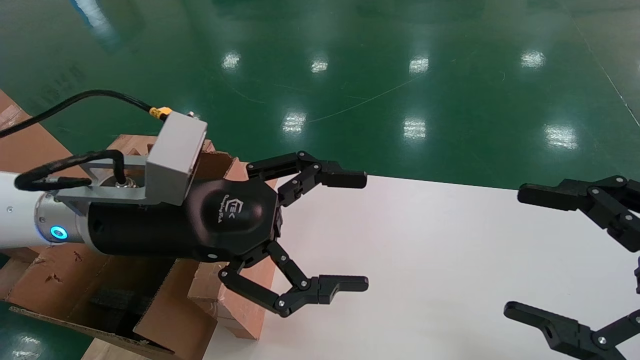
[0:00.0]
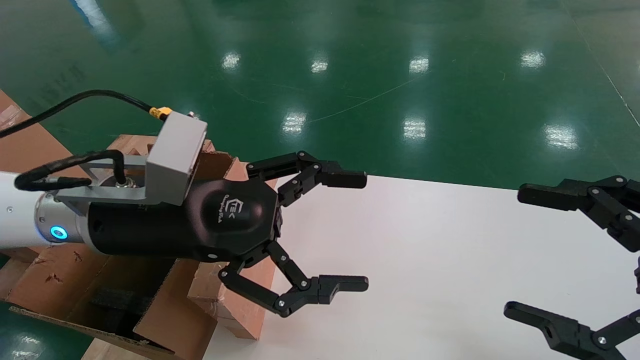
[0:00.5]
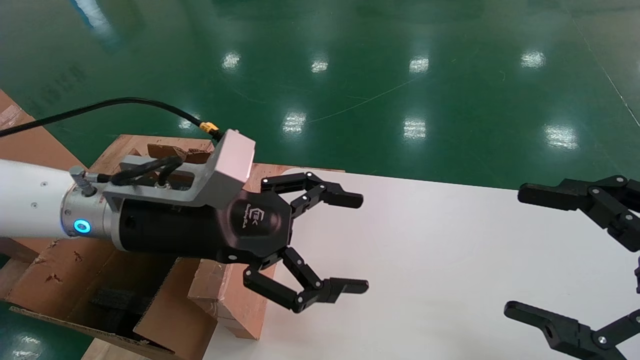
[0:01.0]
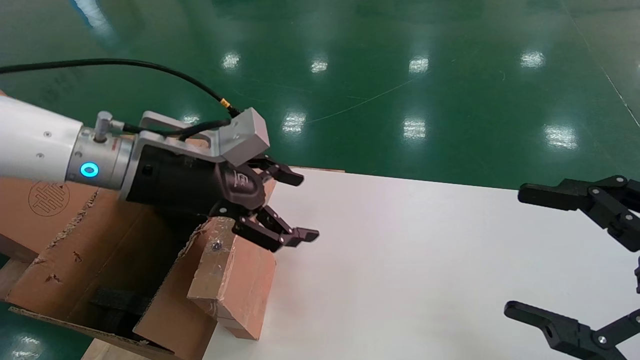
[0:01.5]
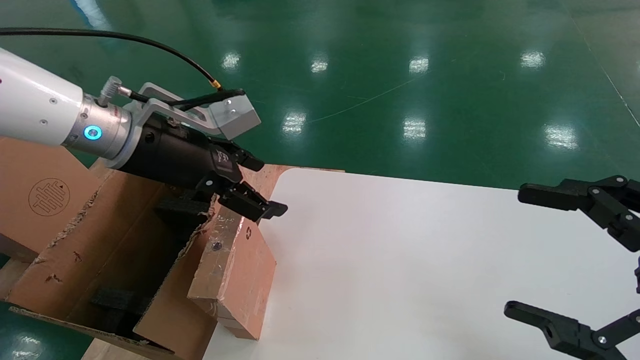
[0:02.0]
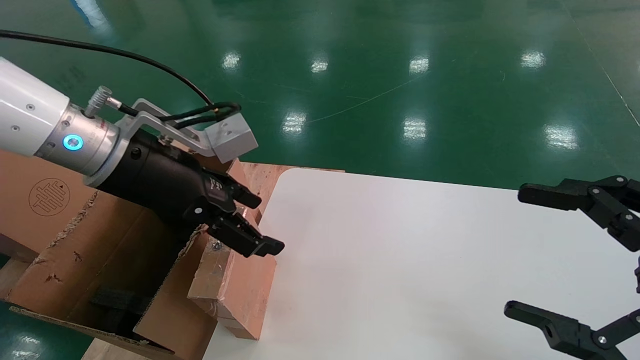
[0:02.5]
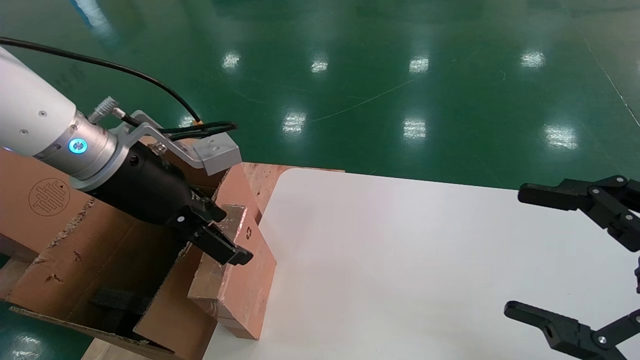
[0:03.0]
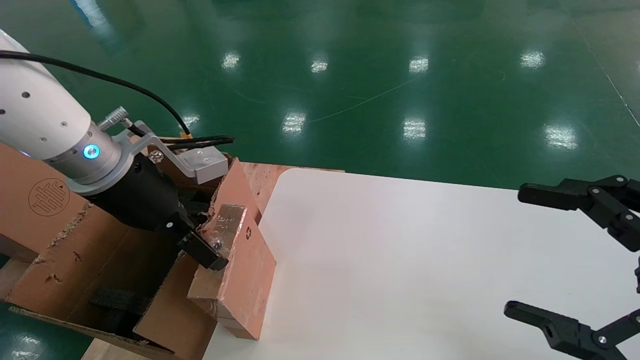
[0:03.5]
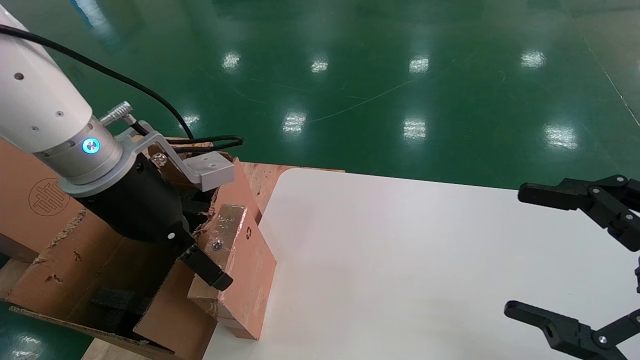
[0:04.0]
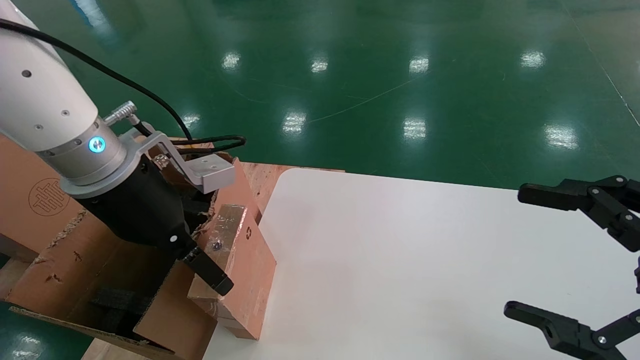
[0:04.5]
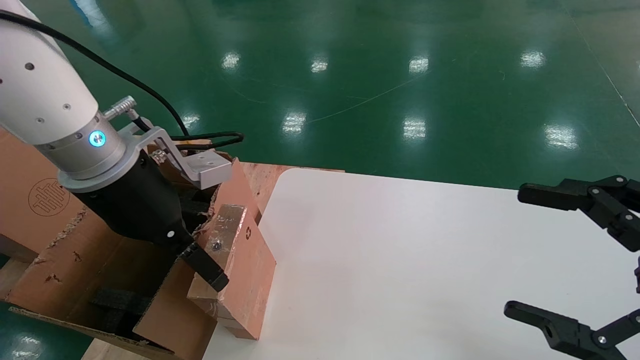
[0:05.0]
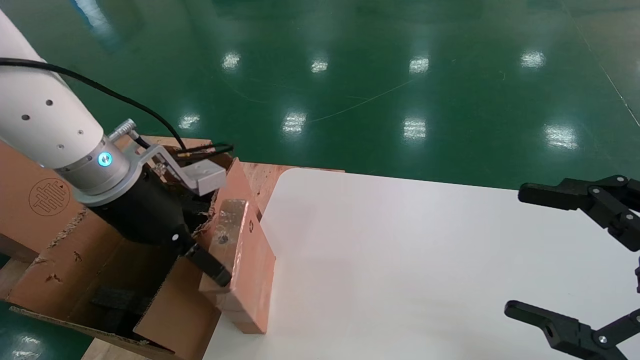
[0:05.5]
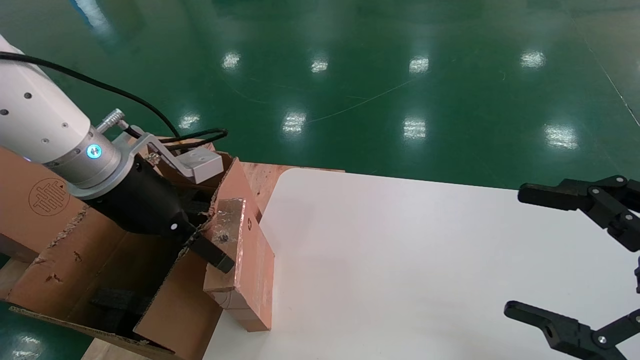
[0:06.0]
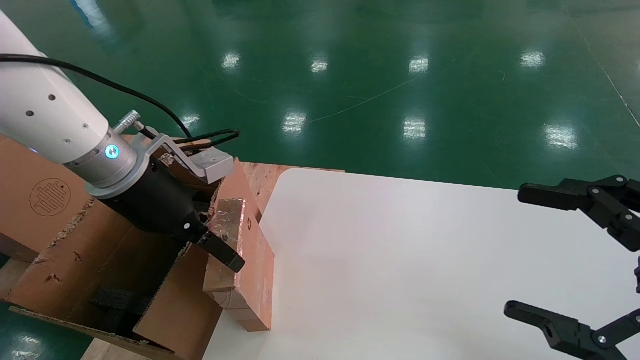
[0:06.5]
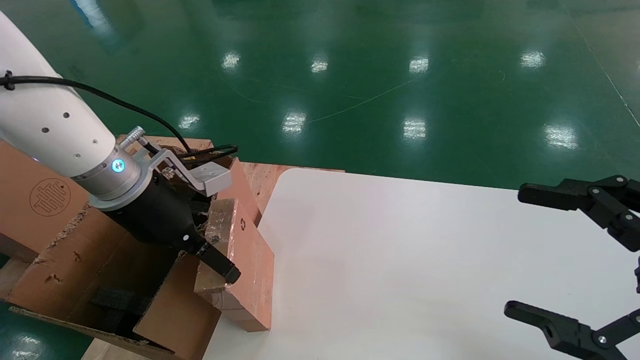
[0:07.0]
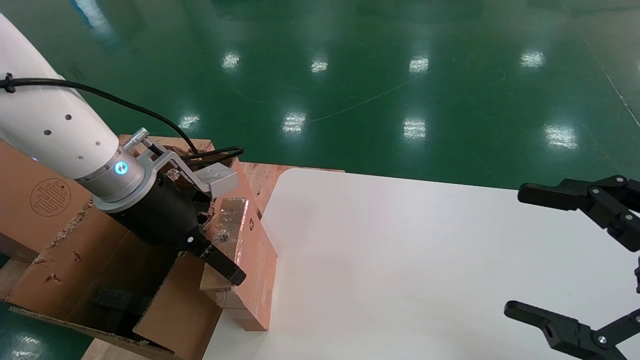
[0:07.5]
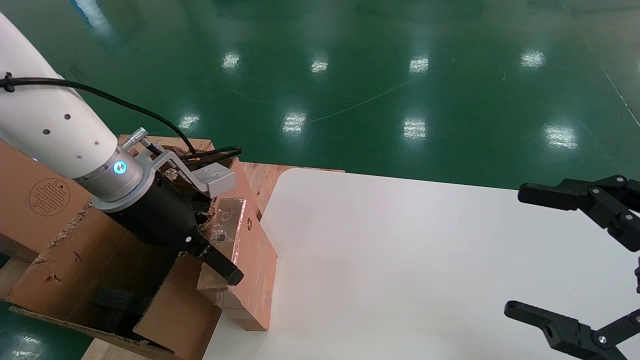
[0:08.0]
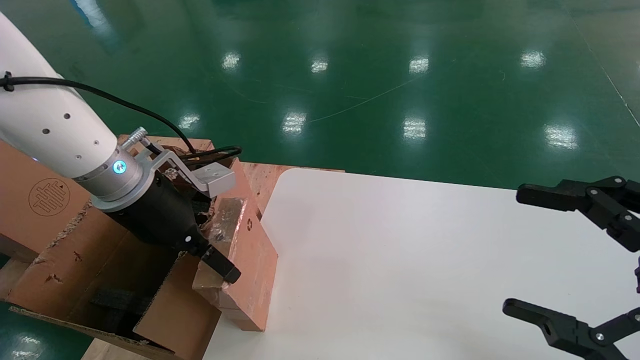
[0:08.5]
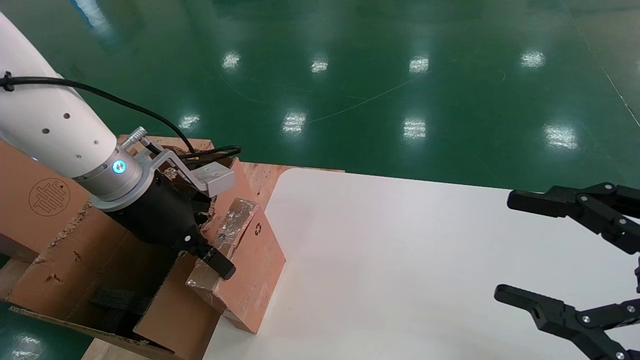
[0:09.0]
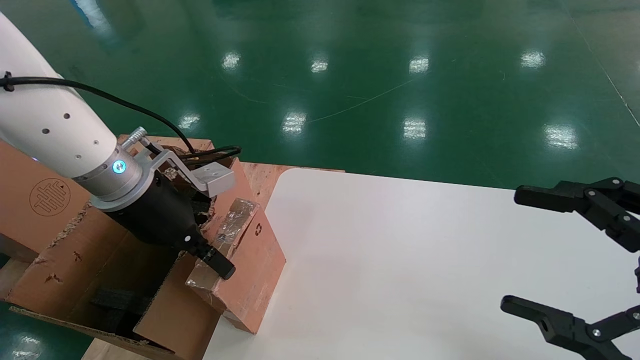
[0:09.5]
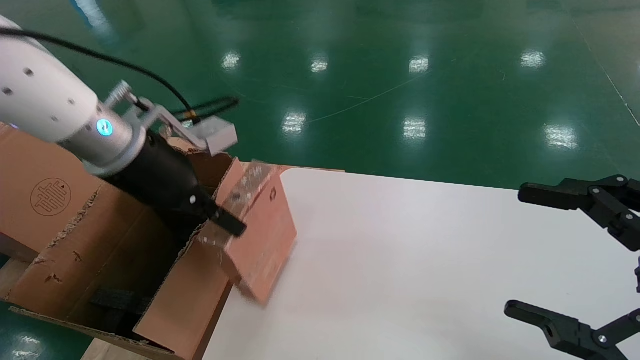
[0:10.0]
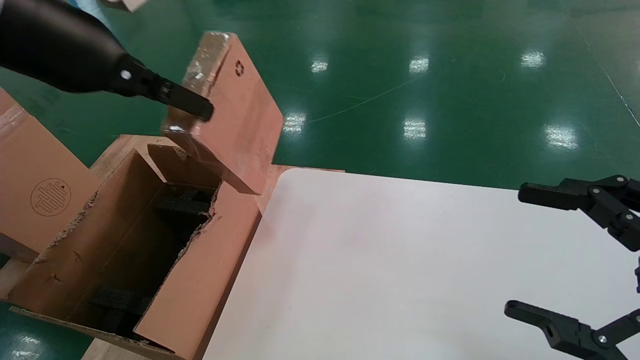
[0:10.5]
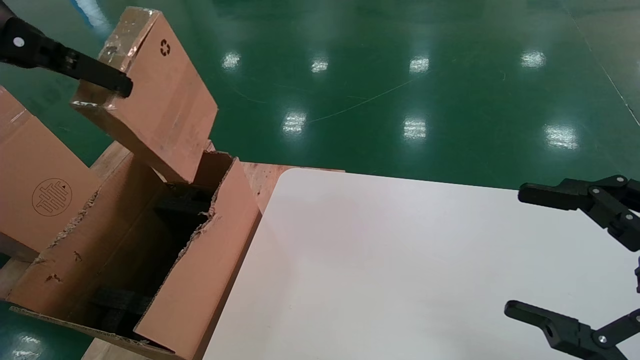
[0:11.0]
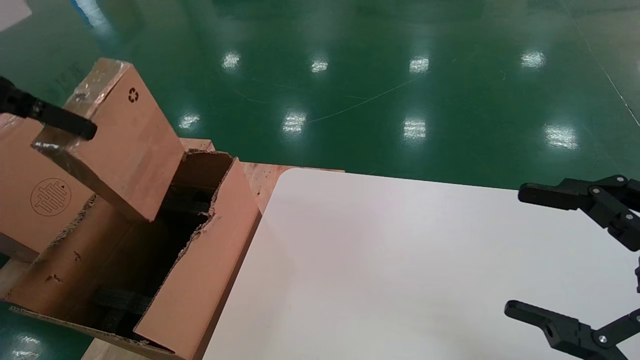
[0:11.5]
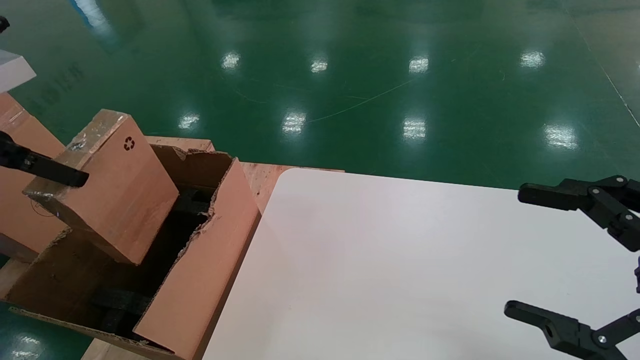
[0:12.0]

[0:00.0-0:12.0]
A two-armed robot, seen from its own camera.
Task of the whole recording: put the box on the table into the big box.
Step, 0:01.0 to 0:09.0: Pick up the mouse and power cord box.
0:00.0 to 0:02.0: The left gripper is displaced forward by about 5 cm.
0:04.0 to 0:08.0: There are only small adjustments of the grippers.
0:08.0 to 0:10.0: The left gripper heads upward, covering about 5 cm, and closes up. The right gripper closes, then reopens.
0:10.0 to 0:12.0: The left gripper is displaced to the left and backward by about 20 cm.

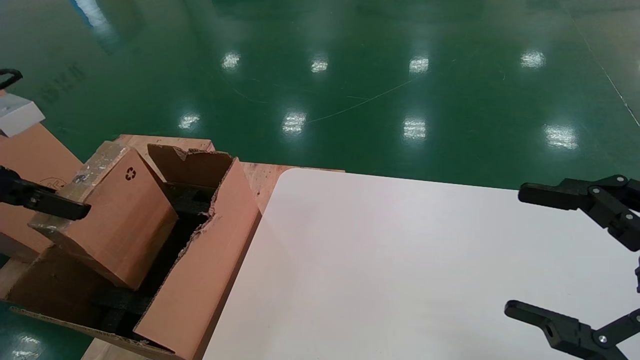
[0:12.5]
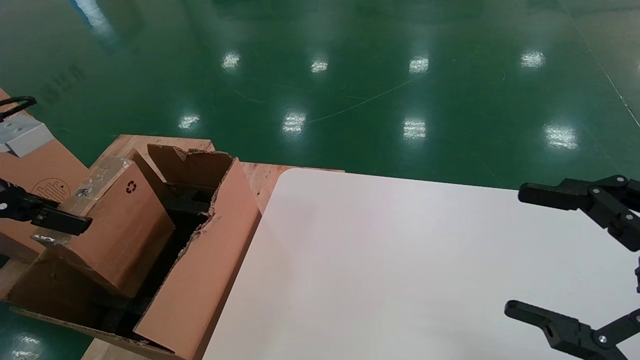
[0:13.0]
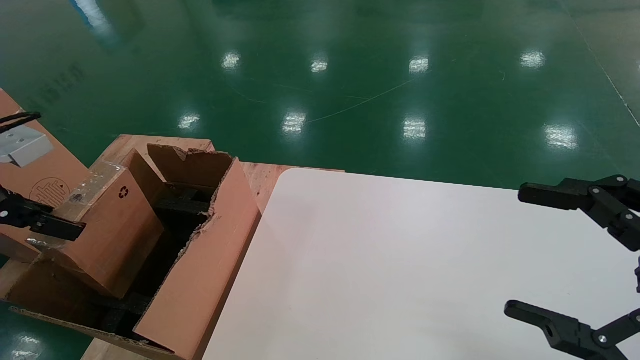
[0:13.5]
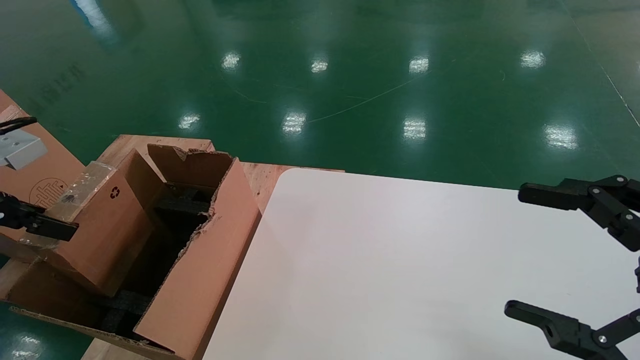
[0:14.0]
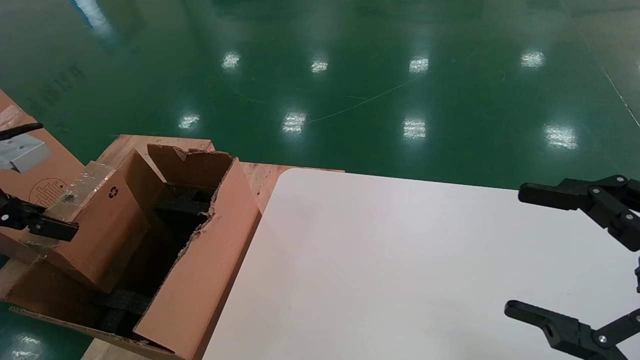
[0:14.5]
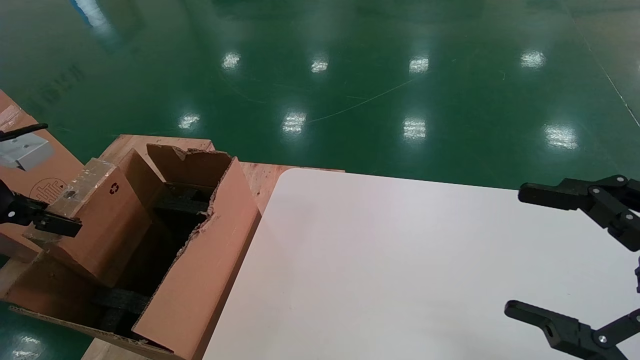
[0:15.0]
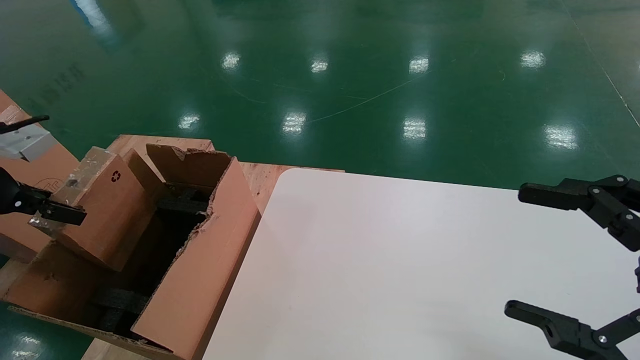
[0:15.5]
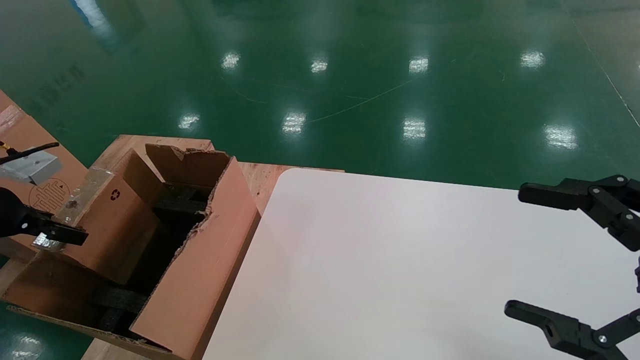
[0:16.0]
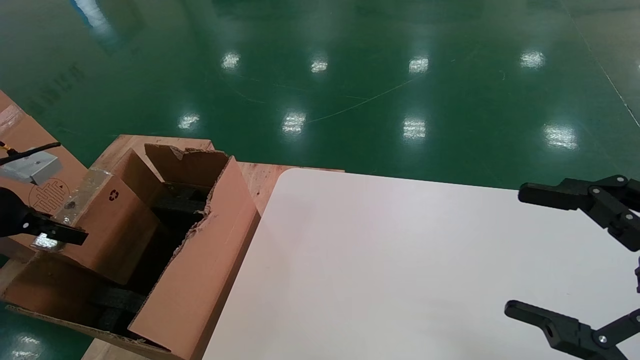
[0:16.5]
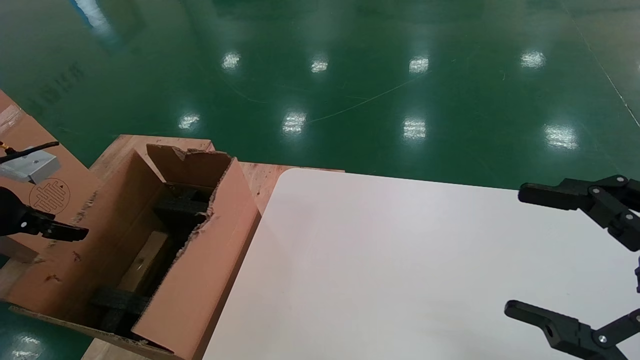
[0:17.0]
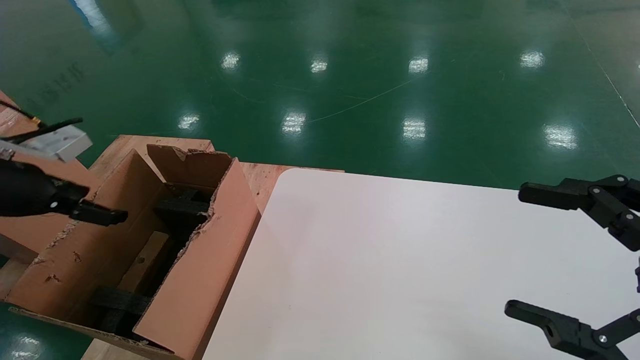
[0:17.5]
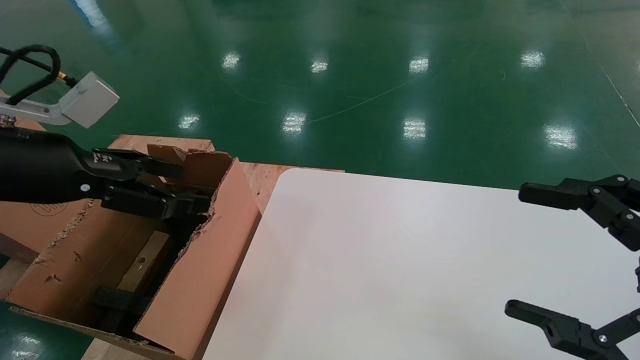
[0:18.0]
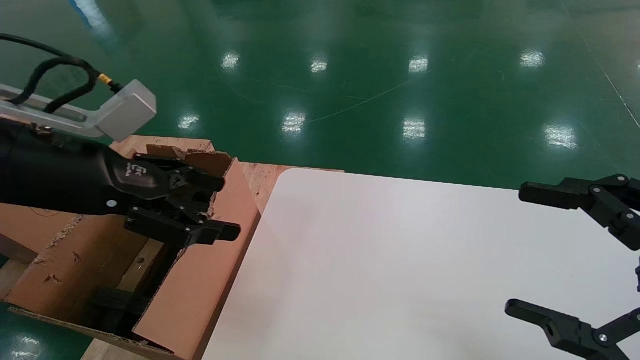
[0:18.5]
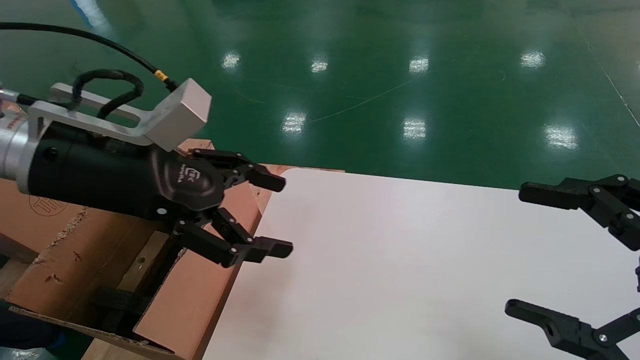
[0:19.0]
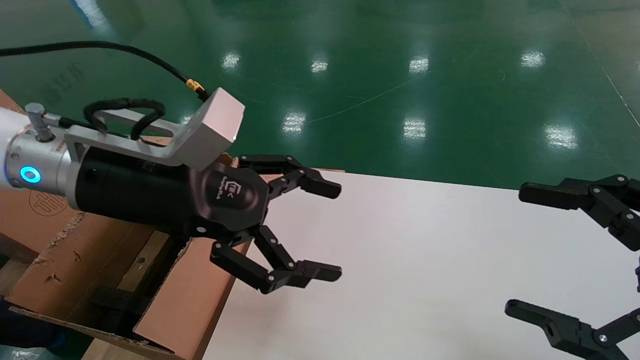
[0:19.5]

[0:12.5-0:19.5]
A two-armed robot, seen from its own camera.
Task of the whole recording: put the box on the table into the big box.
Step, 0:12.5 to 0:17.0: Place the mouse and power cord box into the container.
0:12.5 to 0:14.5: The left gripper is displaced downward by roughly 5 cm.
0:14.5 to 0:16.0: The left gripper moves about 5 cm.
0:16.0 to 0:17.5: The left gripper shifts about 5 cm to the right, and opens up.
0:17.5 to 0:19.5: The left gripper heads to the right, covering approximately 25 cm.
